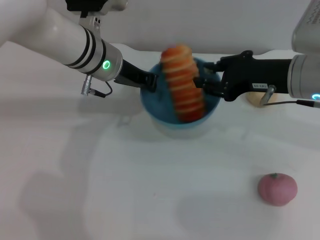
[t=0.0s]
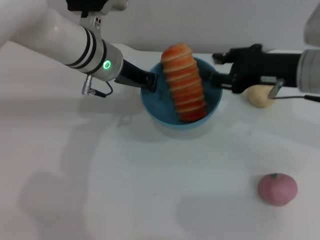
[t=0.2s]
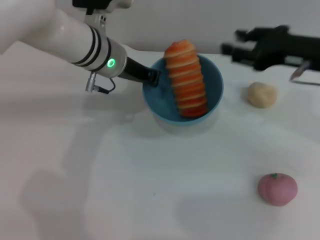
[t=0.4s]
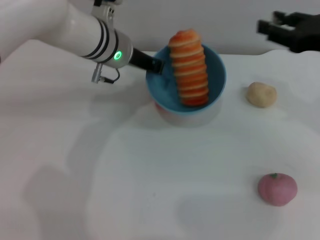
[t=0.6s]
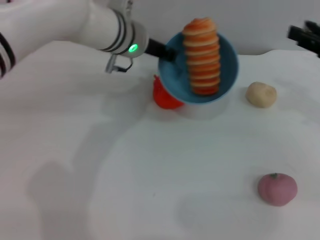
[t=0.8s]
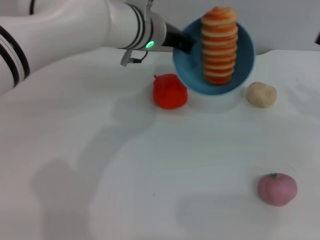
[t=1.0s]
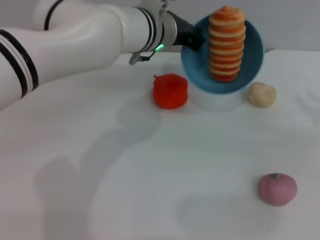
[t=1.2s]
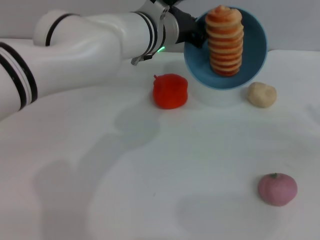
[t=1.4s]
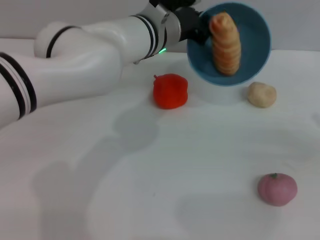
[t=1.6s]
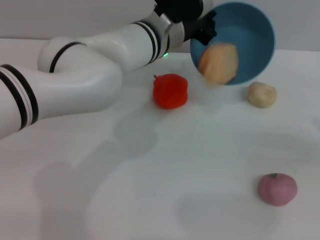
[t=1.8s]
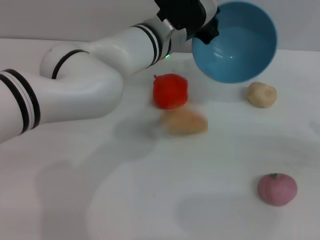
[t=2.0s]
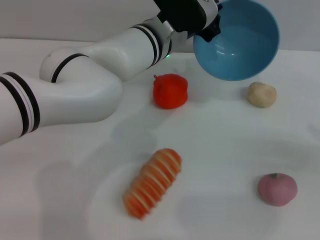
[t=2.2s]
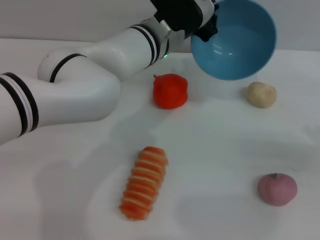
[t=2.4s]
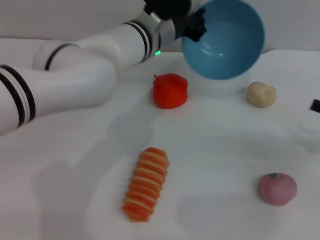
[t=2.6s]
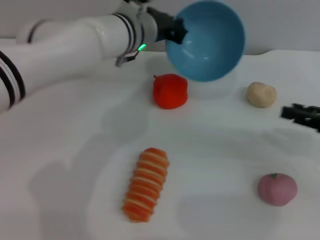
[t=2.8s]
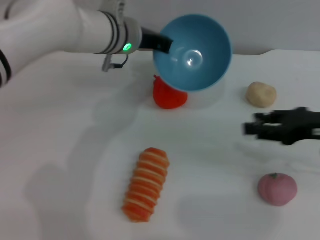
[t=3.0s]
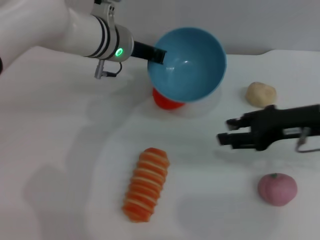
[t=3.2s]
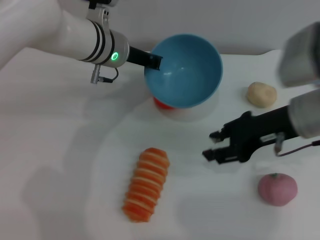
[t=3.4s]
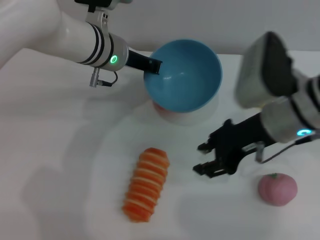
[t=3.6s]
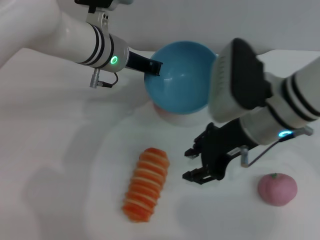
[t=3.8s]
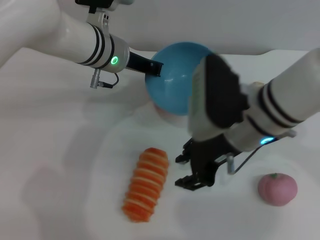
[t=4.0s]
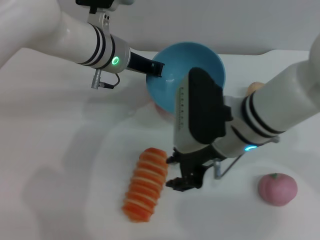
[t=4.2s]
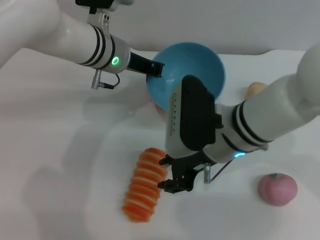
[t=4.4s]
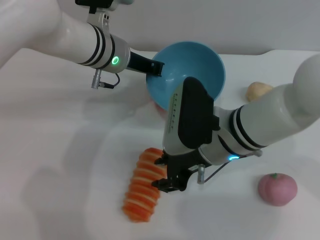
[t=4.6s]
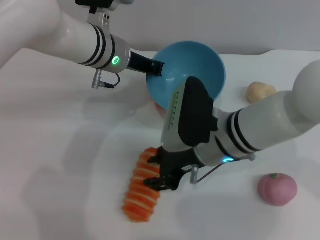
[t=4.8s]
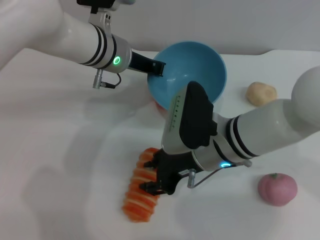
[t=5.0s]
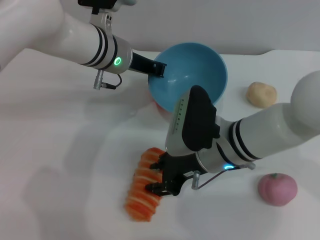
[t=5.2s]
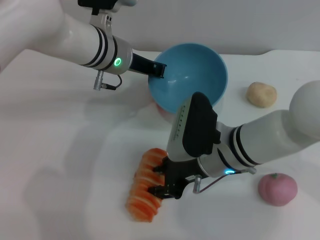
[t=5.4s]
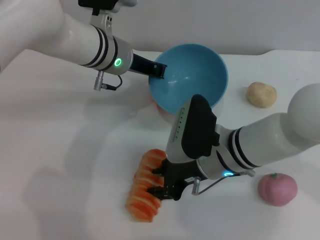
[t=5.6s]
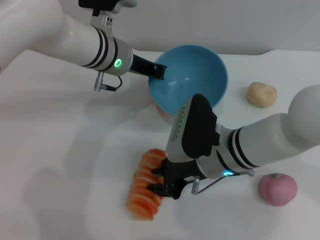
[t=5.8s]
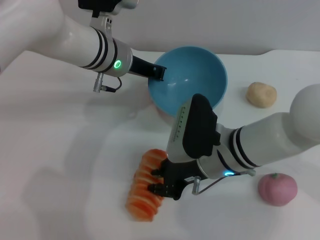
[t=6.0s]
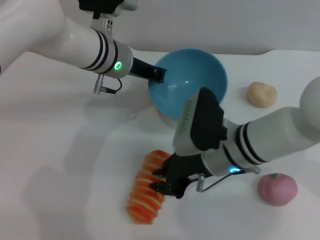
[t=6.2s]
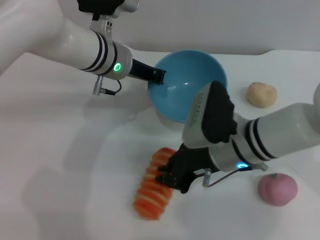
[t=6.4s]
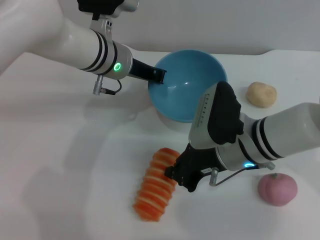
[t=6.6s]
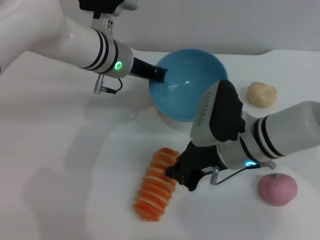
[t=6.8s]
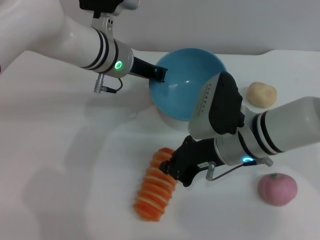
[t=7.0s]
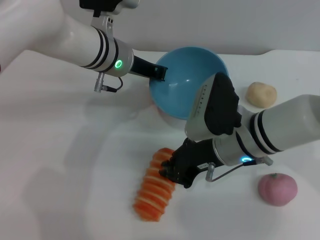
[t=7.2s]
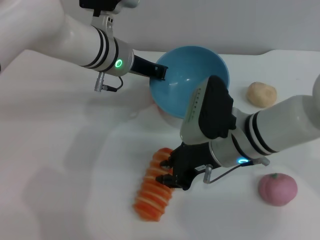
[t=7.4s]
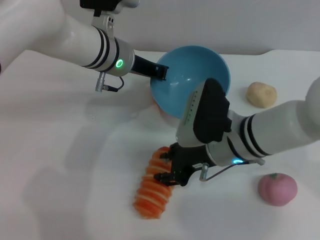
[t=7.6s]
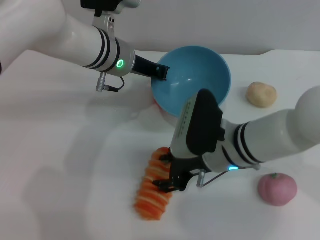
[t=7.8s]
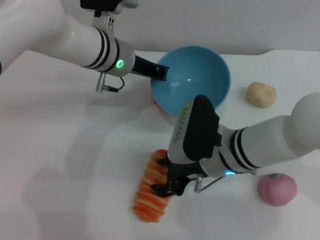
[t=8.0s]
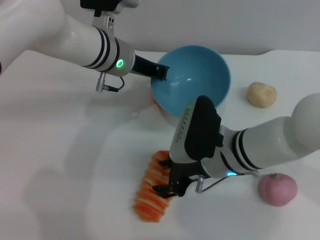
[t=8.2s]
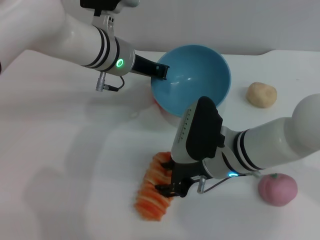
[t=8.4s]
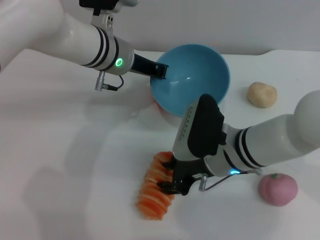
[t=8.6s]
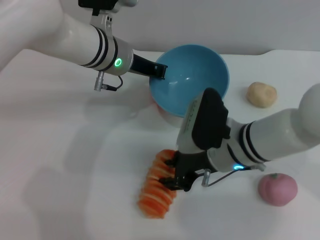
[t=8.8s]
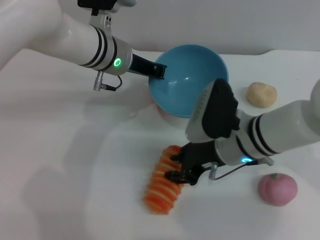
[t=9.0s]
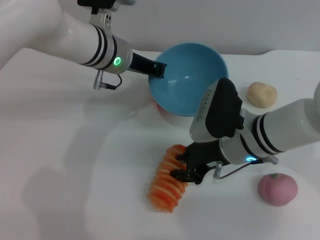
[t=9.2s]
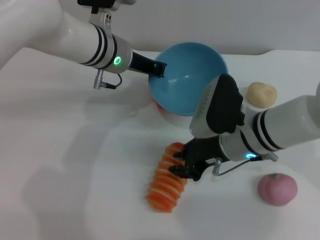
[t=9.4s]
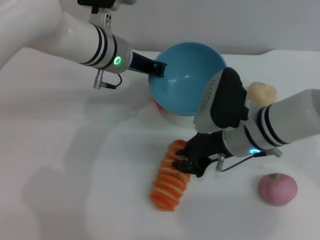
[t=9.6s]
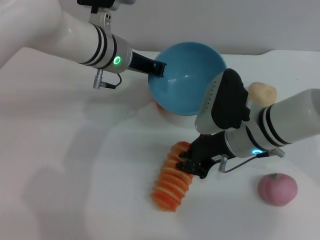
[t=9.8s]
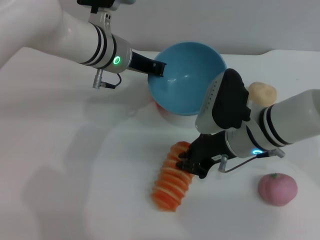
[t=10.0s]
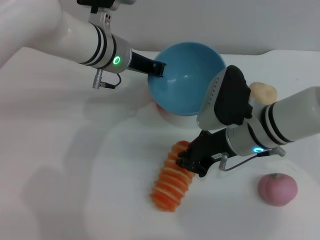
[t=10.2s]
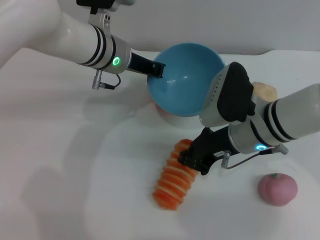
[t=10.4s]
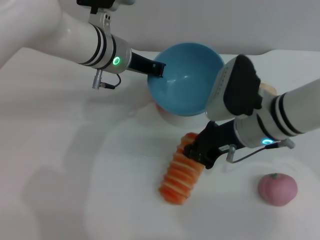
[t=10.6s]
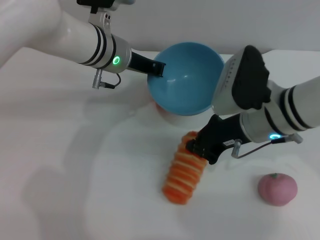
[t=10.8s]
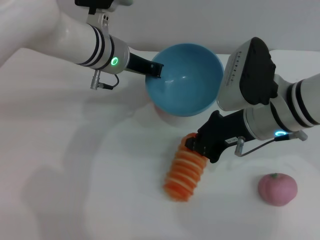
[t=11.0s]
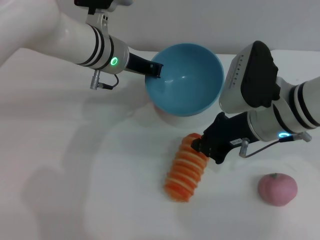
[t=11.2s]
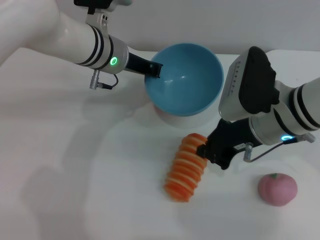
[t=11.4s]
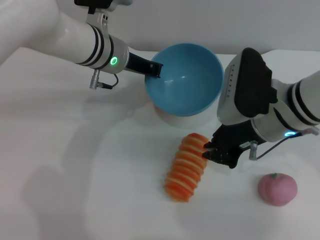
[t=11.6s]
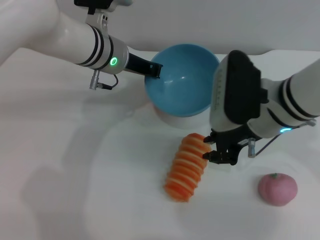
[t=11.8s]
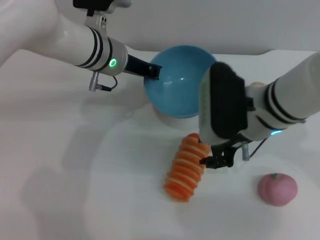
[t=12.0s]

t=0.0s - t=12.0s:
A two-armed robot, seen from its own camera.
Task of the whole recording: put the bread into the blue bowl and pour it out repeatedly.
Step, t=0.8s - t=2.2s: Pour the bread out of the bowl.
t=0.0s - t=1.6s: The left gripper travels to the right by roughly 10 cm; the right gripper heads to the right, covering roughly 20 cm.
t=1.6s - t=3.0s: The left gripper travels to the left by some 5 cm, while the right gripper heads to the left, covering some 10 cm.
t=3.0s - t=4.4s: The right gripper moves to the left, approximately 20 cm.
t=4.4s - t=6.0s: The right gripper goes about 5 cm downward.
t=6.0s - t=7.6s: The right gripper closes, then opens again.
t=7.6s - t=9.0s: The grippers stay close to where they were, moving slightly.
t=9.0s - t=10.4s: The right gripper closes up.

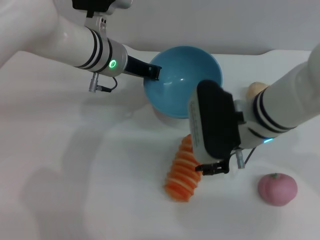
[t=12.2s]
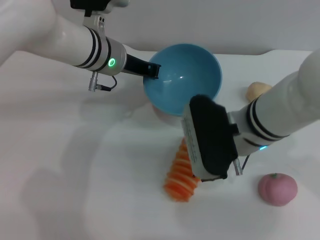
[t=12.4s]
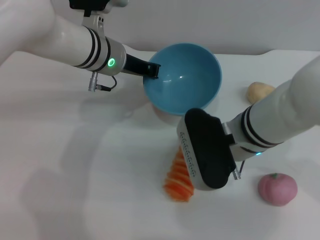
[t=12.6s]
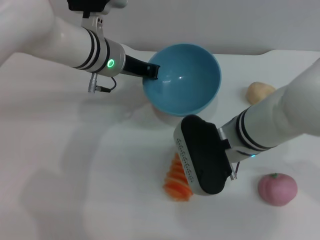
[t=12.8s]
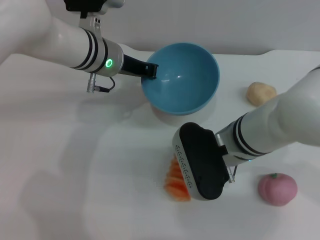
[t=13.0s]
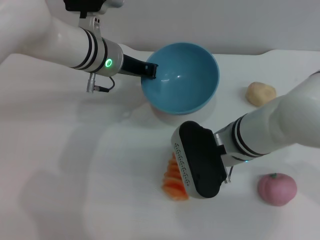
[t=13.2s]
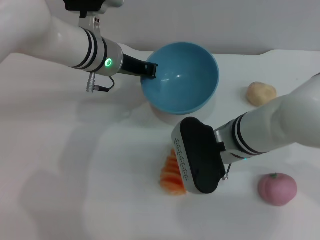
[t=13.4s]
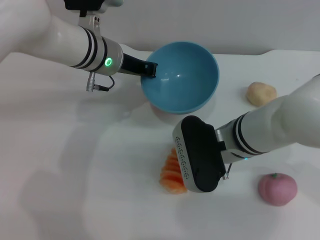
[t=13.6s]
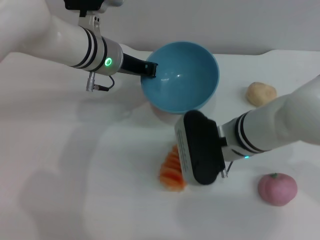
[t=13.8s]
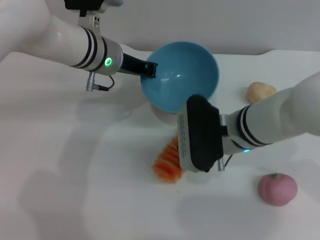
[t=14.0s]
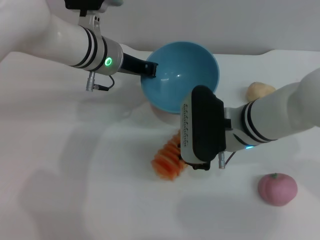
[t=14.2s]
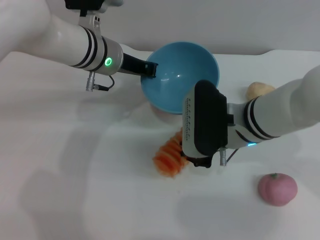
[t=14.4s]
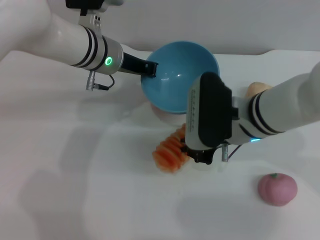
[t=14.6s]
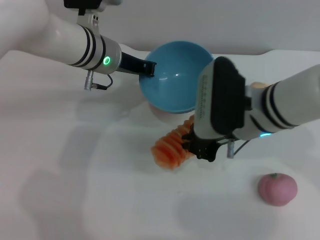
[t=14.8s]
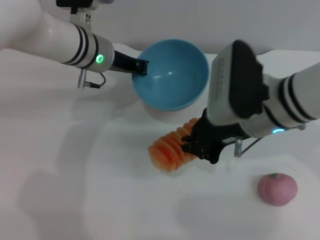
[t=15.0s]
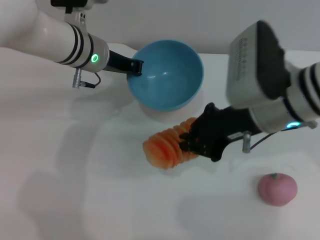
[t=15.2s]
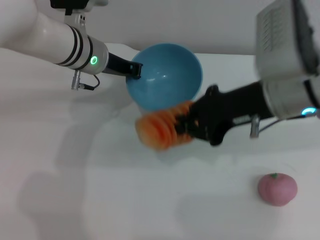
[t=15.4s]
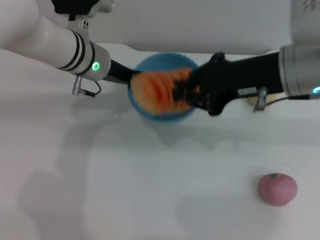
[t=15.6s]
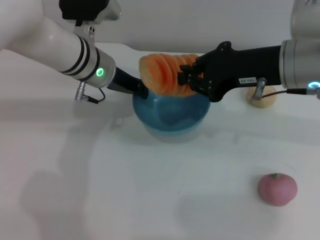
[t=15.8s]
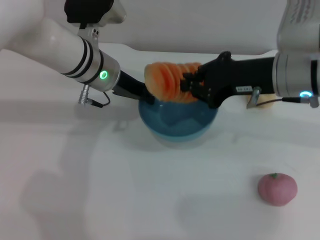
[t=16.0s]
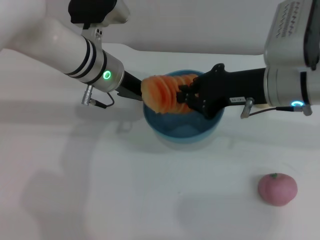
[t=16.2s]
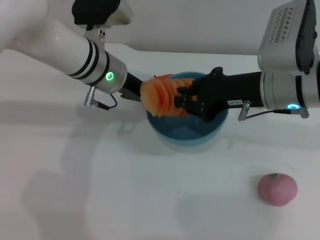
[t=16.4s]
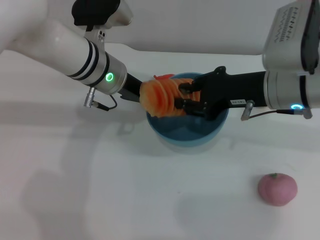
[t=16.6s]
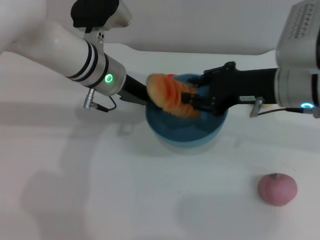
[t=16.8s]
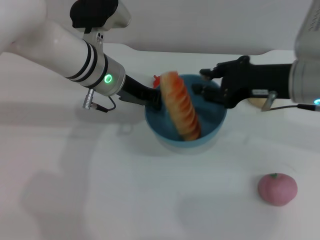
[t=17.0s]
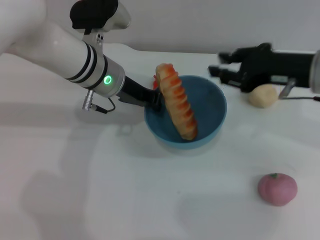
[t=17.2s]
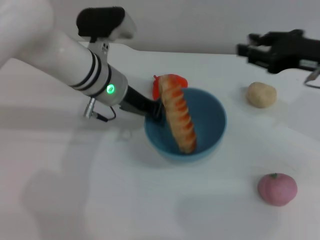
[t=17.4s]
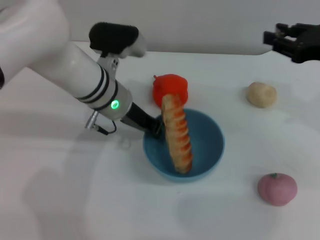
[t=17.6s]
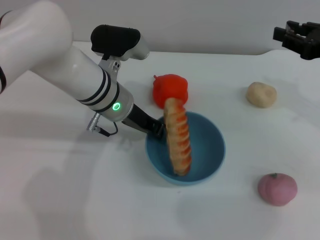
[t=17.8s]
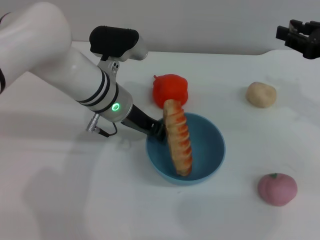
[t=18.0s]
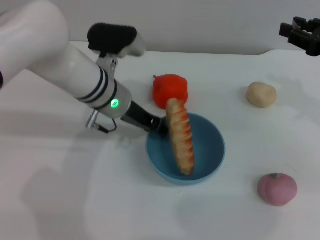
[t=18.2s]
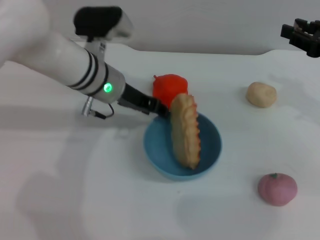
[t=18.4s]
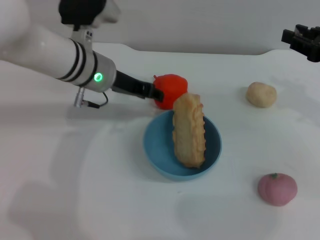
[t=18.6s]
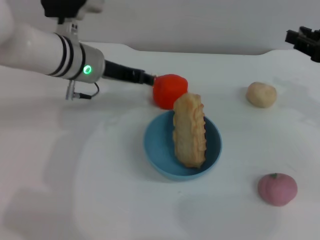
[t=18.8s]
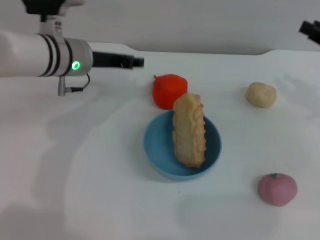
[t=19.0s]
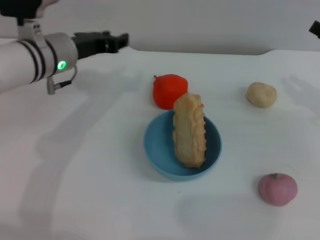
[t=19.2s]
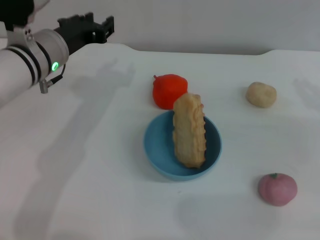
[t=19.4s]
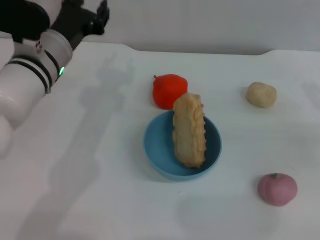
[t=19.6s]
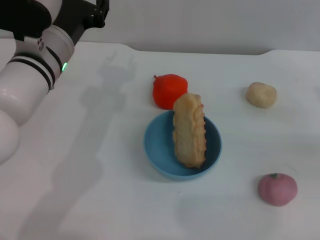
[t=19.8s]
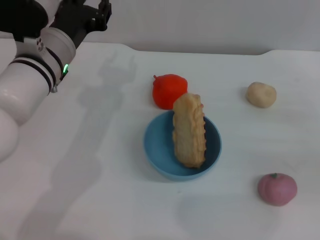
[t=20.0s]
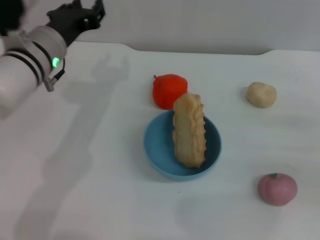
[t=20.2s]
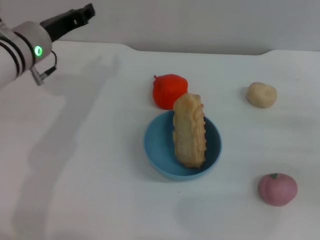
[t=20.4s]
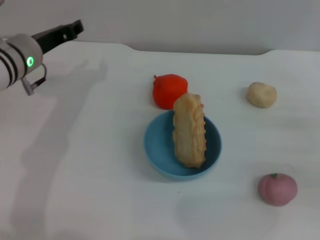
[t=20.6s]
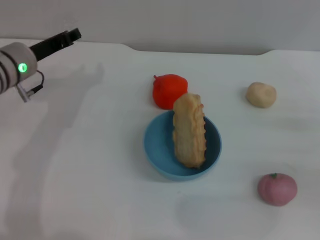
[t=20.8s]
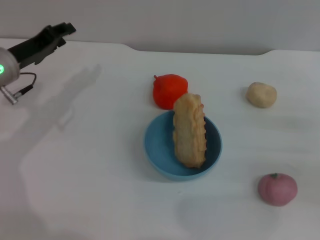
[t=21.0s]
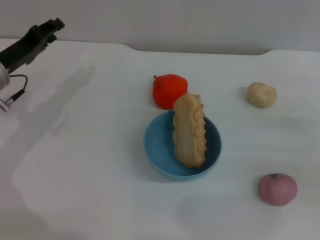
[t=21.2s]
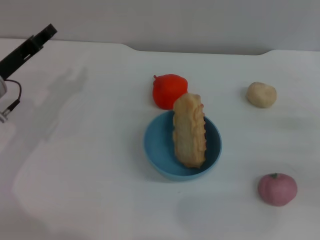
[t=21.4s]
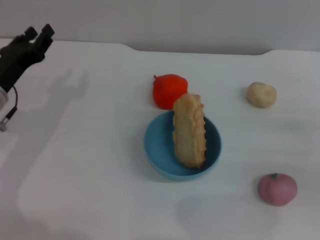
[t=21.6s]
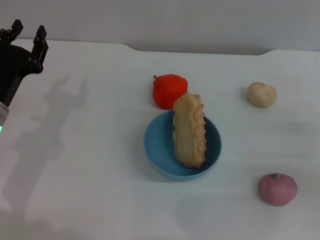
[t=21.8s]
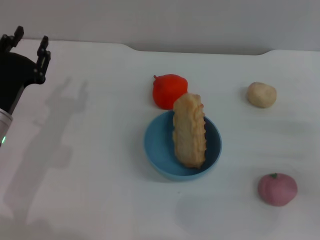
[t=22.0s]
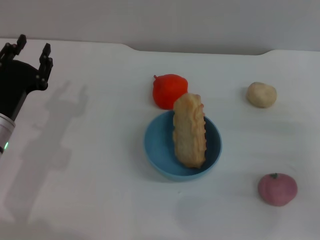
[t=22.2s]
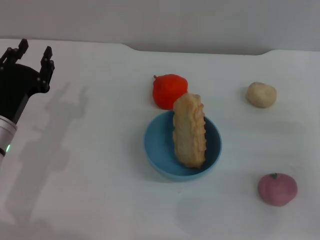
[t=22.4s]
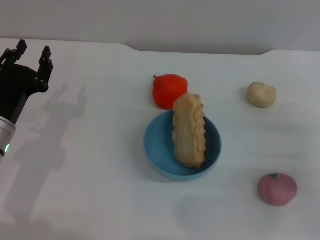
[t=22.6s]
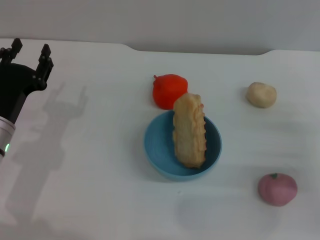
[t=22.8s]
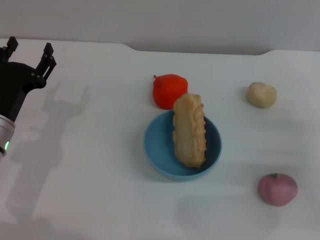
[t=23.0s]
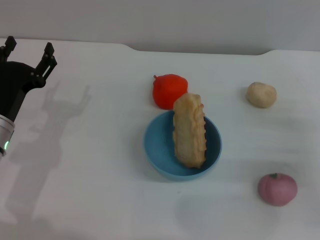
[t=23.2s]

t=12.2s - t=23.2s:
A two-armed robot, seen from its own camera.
Task of the whole recording: put the bread into the blue bowl and pour it out repeatedly.
Step, t=12.2s - t=15.2s: Pick up the bread with the right gripper.
Step, t=15.4s - t=17.0s: Place the bread into the bowl.
Step, t=17.2s - t=18.6s: Place the bowl on the table.
t=12.2s - t=13.8s: There are only small adjustments of the grippers.
t=13.8s - t=15.4s: The right gripper goes roughly 15 cm upward and to the right, and closes its fingers.
t=15.4s - t=17.0s: The right gripper shifts by about 5 cm, and opens.
t=17.0s - t=18.4s: The left gripper opens its fingers; the right gripper shifts roughly 10 cm to the right.
t=18.4s - t=20.0s: The right gripper is displaced downward, to the right and backward by about 15 cm; the left gripper shifts by some 5 cm.
t=20.0s - t=21.6s: The left gripper shifts roughly 15 cm to the left and downward.
t=21.6s - t=23.2s: The left gripper moves backward, about 5 cm.
